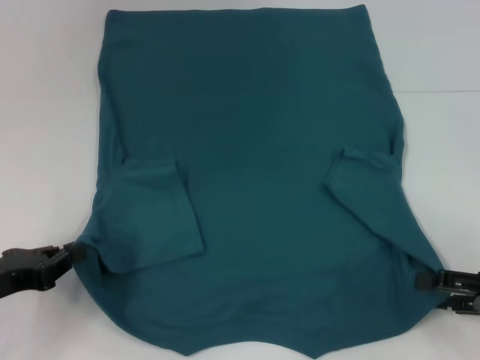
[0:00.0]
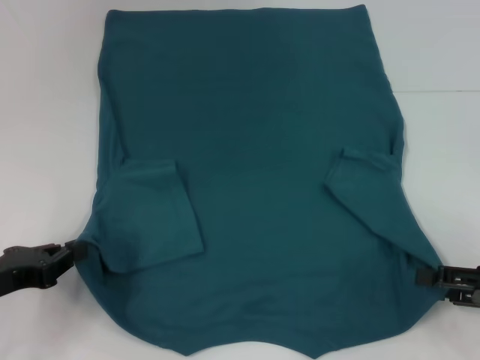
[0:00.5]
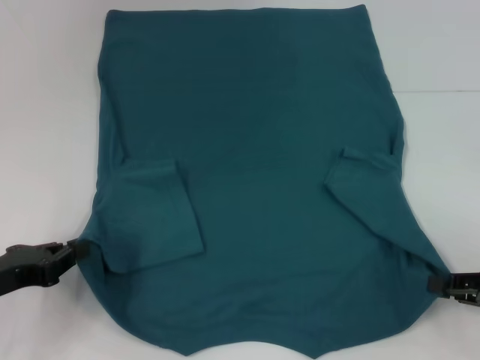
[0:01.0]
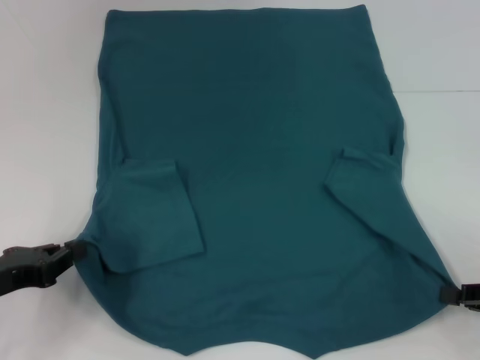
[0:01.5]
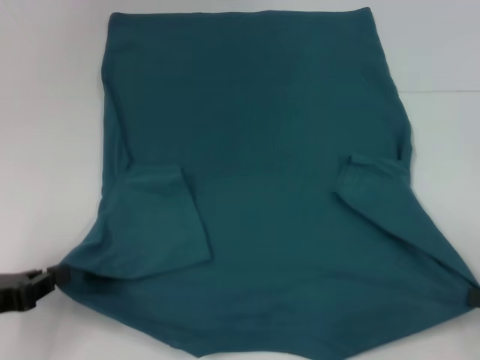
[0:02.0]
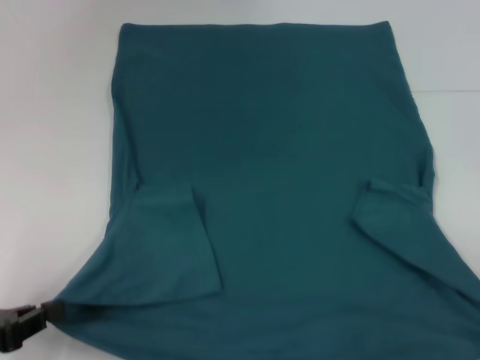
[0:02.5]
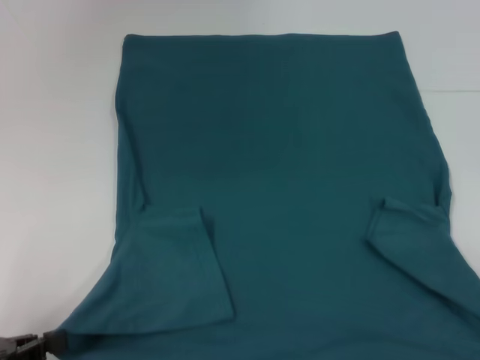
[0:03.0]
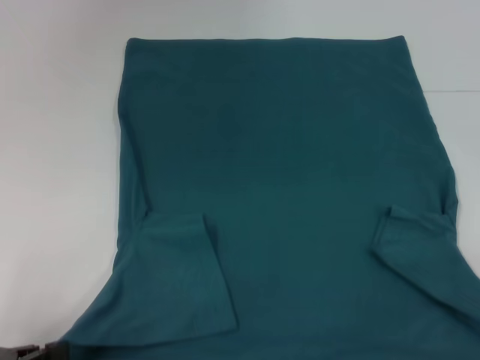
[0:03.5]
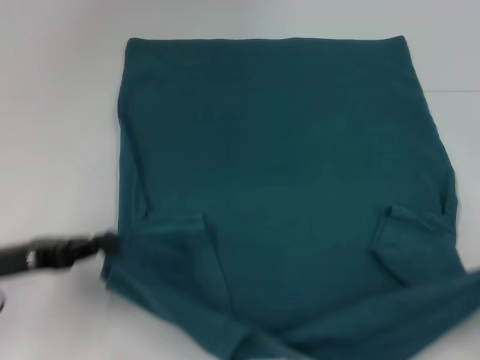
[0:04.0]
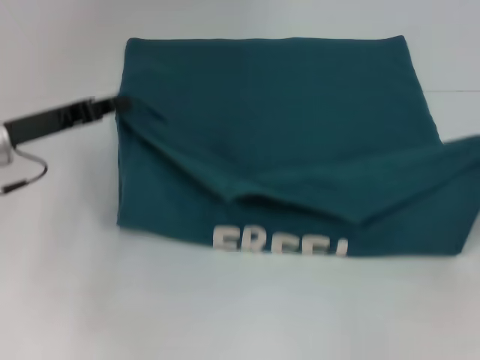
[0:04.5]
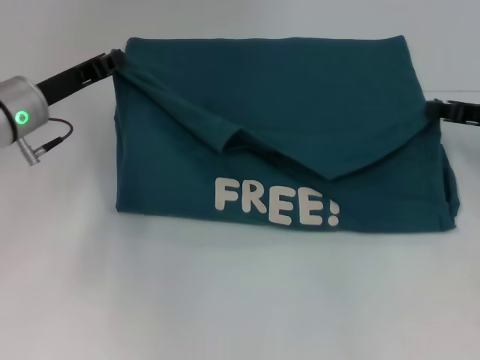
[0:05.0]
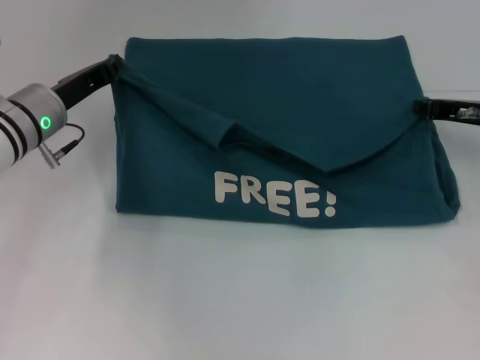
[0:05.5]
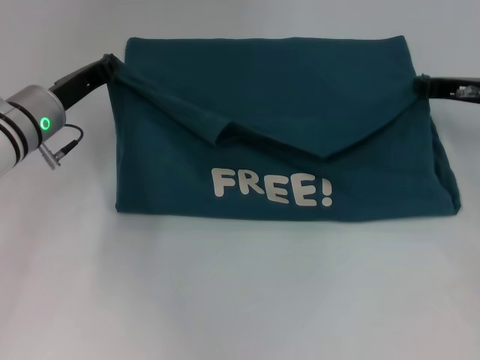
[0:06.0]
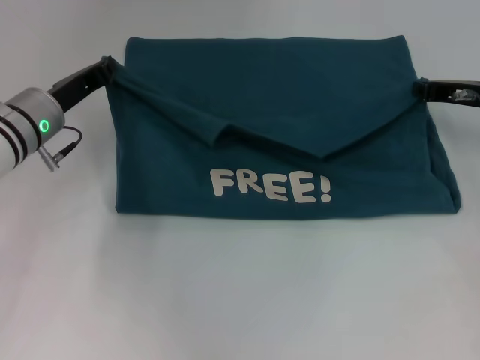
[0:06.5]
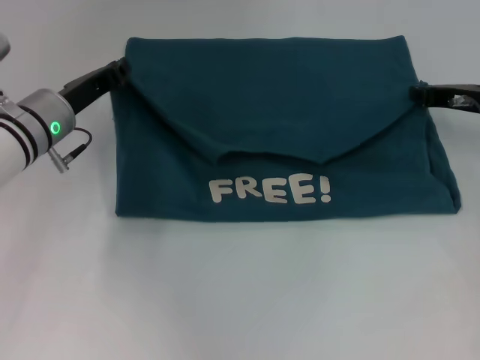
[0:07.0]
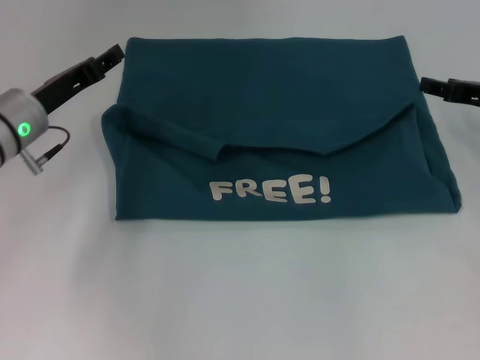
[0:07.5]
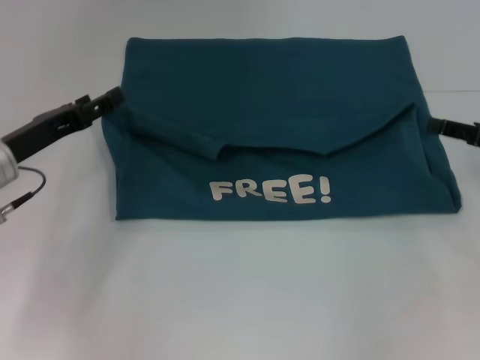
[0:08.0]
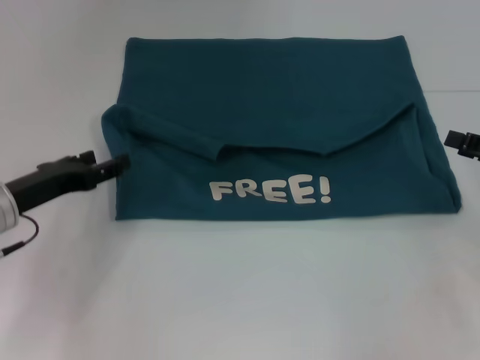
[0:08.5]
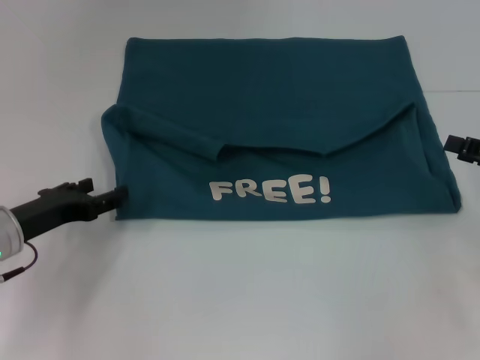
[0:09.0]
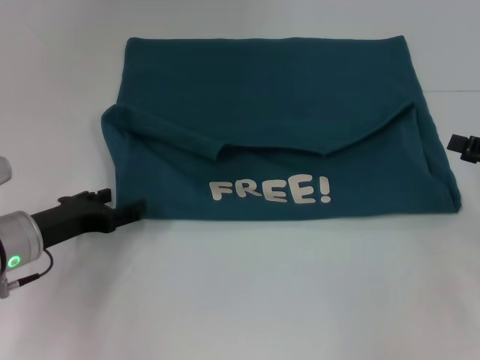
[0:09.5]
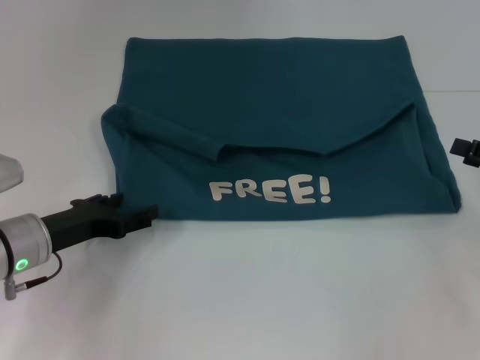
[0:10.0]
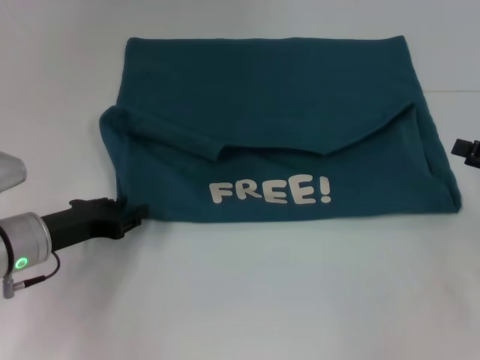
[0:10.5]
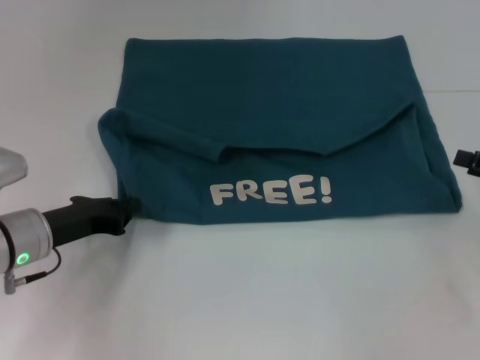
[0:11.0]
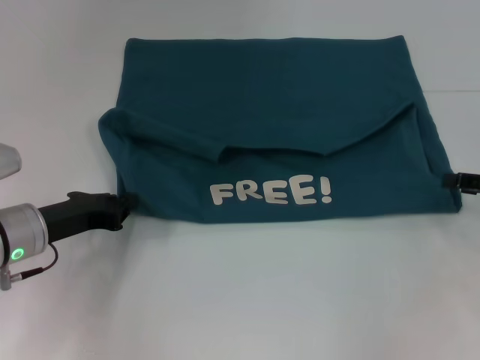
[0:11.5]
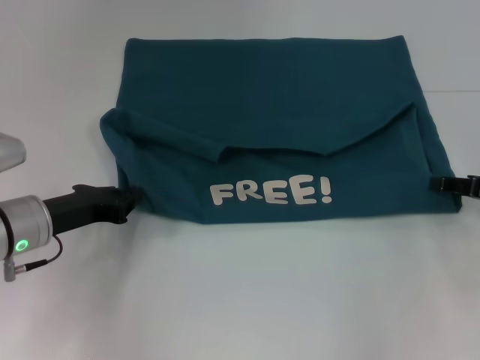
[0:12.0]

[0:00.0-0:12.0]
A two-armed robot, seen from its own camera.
Step, 0:01.0 to 0:07.0: Fold the clothes to the left.
Step, 0:01.0 to 0:07.0: Fold the clothes to the right.
0:00.0 to 0:02.0: The right gripper closes its fingers.
0:02.0 to 0:04.0: The right gripper goes backward and returns, approximately 10 cm each way, while the left gripper moves about 5 cm.
0:04.0 to 0:06.0: The right gripper is displaced forward and to the left by about 25 cm, while the left gripper is displaced forward and to the right by about 20 cm.
0:06.0 to 0:08.0: The left gripper is displaced backward by approximately 5 cm, and opens up, while the right gripper is displaced backward and to the right by about 10 cm, and opens its fingers.
0:08.0 to 0:10.0: The left gripper goes roughly 5 cm downward.
0:10.0 to 0:12.0: The left gripper closes its fingers.

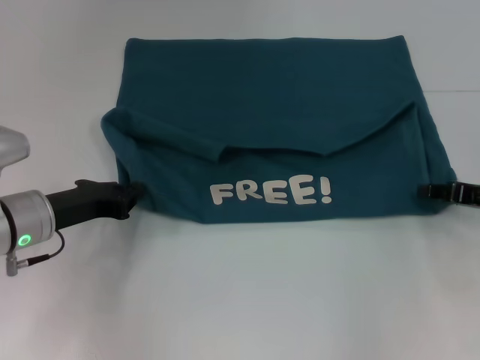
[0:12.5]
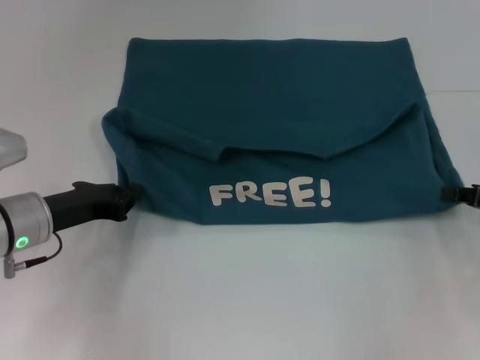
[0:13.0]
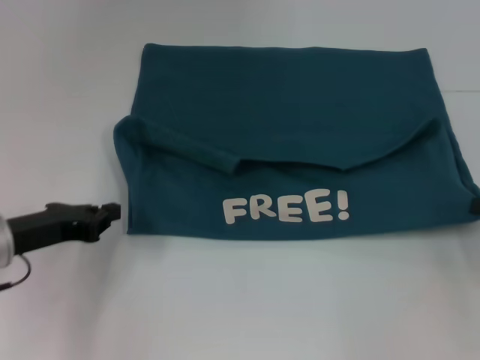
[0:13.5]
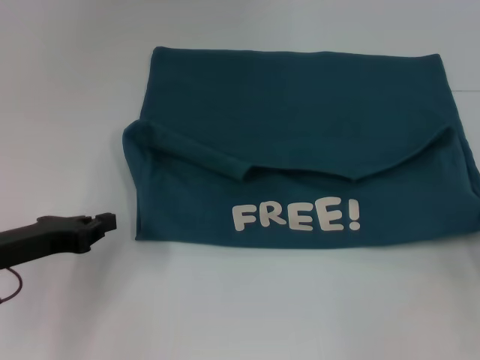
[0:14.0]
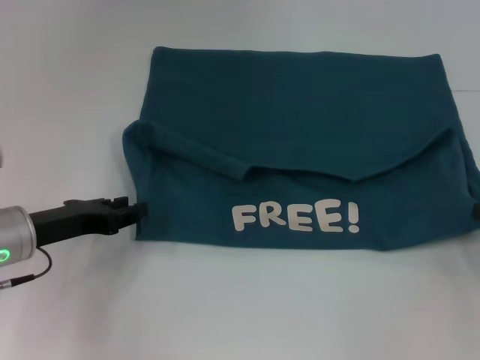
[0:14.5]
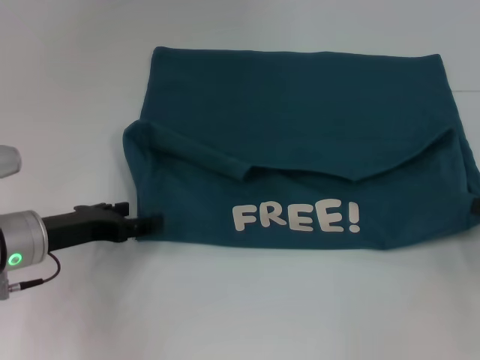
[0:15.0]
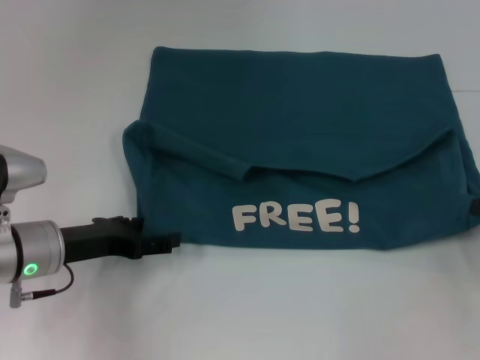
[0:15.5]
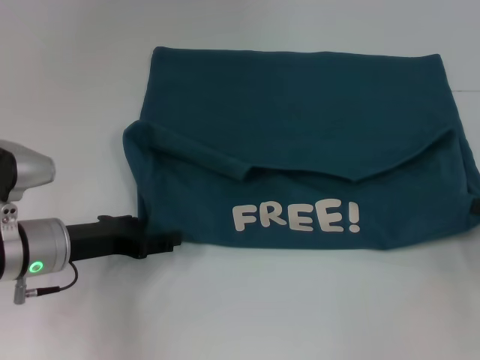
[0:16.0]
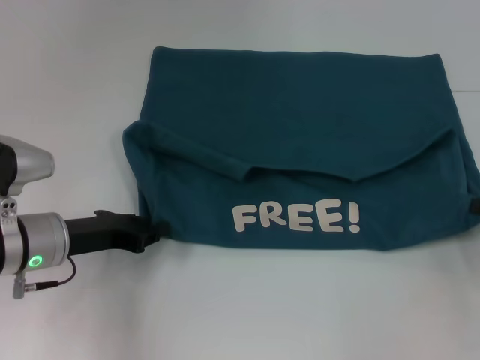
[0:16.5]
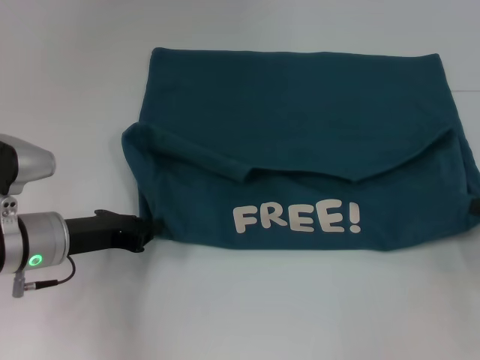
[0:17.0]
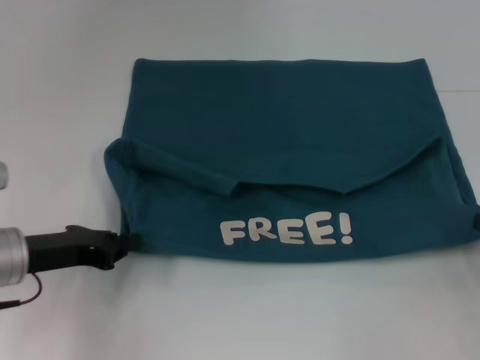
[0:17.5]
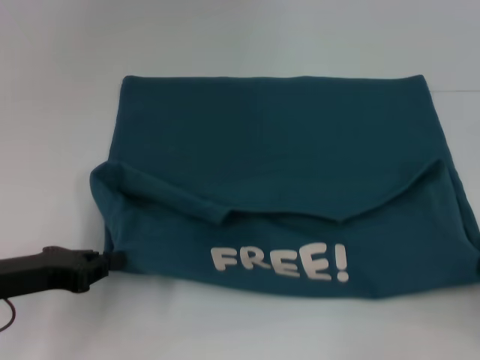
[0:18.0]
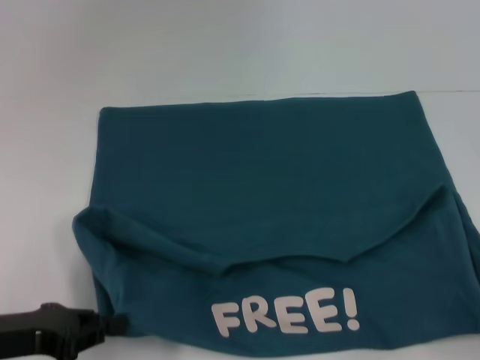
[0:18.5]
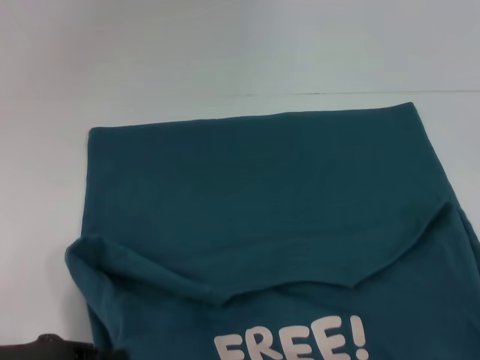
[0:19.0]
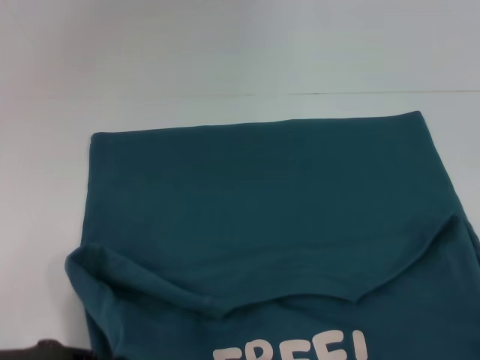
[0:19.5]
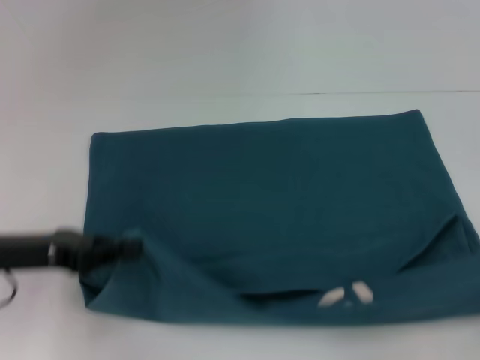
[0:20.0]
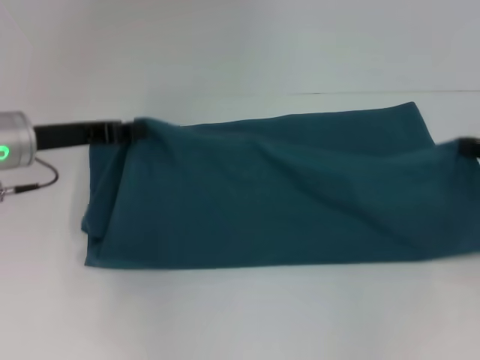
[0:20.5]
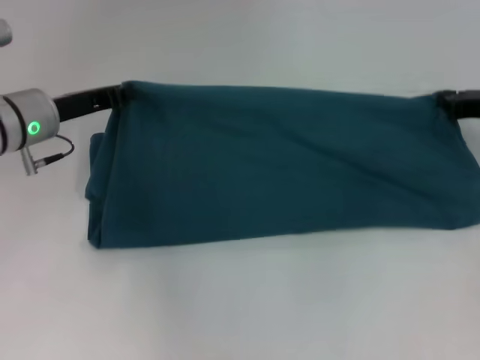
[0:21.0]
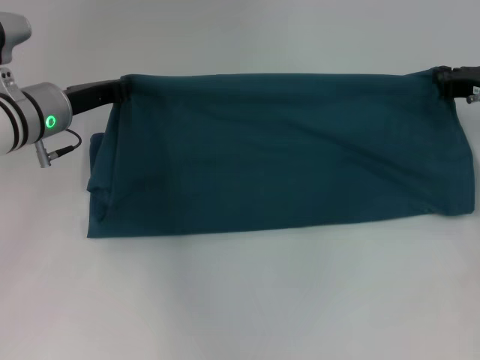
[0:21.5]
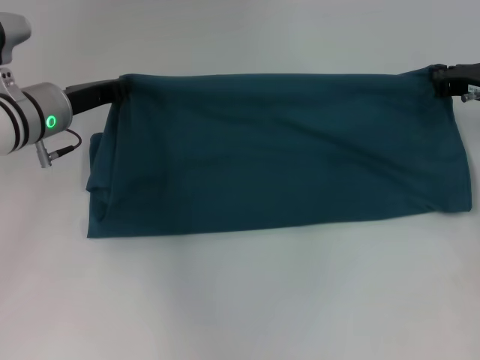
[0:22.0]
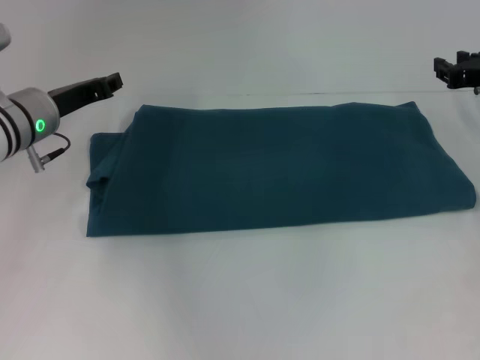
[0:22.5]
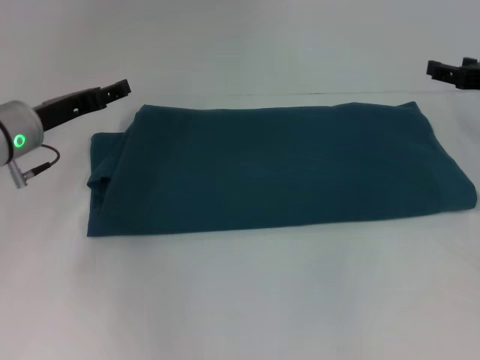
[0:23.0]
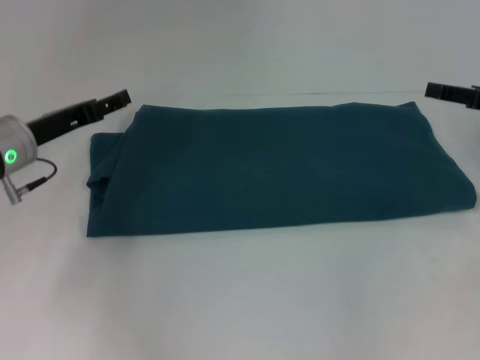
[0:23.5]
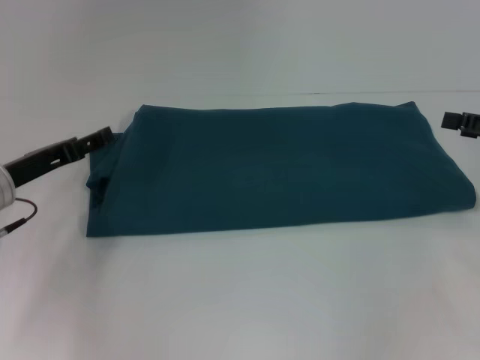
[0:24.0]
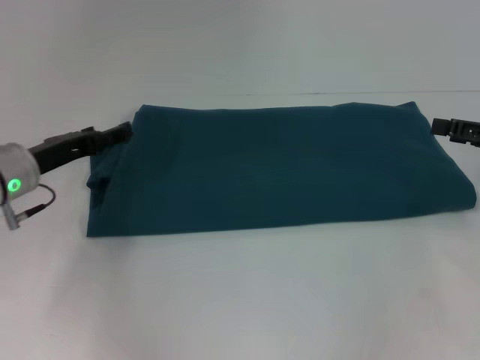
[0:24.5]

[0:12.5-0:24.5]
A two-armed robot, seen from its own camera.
Step, 0:12.5 to 0:18.5: Pull the clothes with your left hand.
Step, 0:12.5 to 0:18.5: Pull the clothes with your right hand.
Step, 0:19.0 to 0:24.0: Fold the clothes to the right.
0:12.5 to 0:14.5: The right gripper moves backward, approximately 5 cm, and closes.
0:14.5 to 0:16.5: The left gripper opens, then closes again.
0:16.5 to 0:18.5: The left gripper travels backward and to the left by approximately 10 cm, and closes its fingers, while the right gripper is displaced backward by approximately 10 cm.
0:18.5 to 0:20.5: The two grippers go roughly 15 cm forward.
0:20.5 to 0:22.5: The left gripper moves approximately 5 cm; the right gripper heads forward and to the left, covering about 10 cm.
0:22.5 to 0:24.5: The left gripper shifts approximately 5 cm backward, and opens up. The right gripper shifts some 10 cm backward and to the right, and opens up.

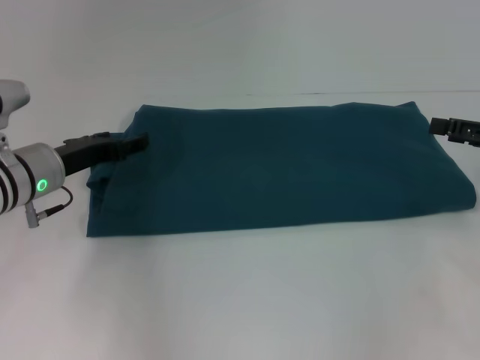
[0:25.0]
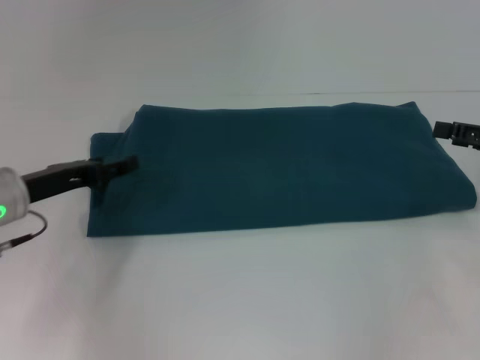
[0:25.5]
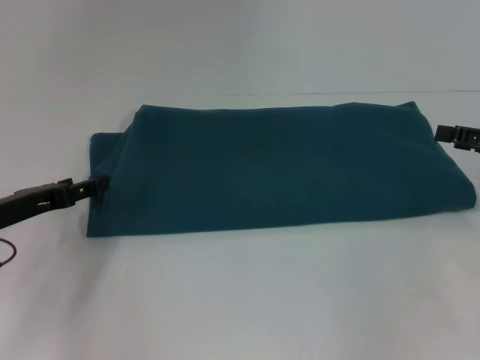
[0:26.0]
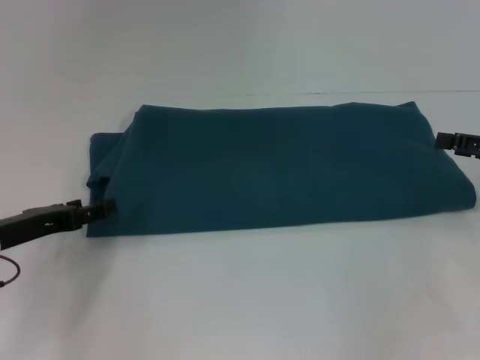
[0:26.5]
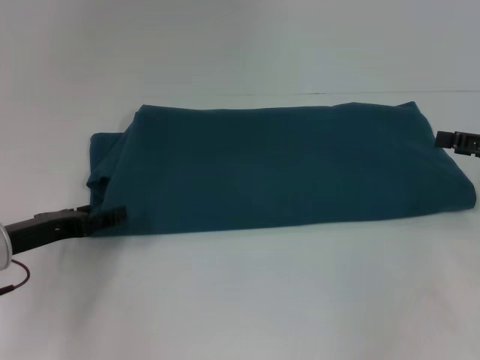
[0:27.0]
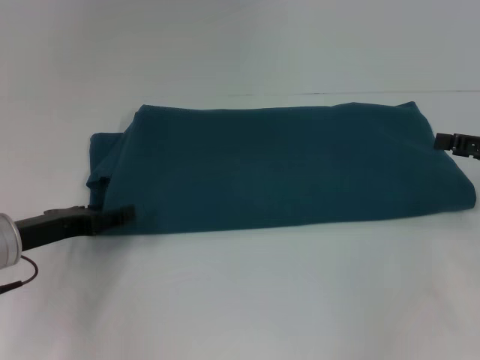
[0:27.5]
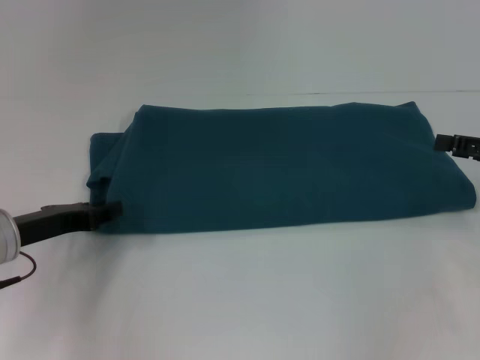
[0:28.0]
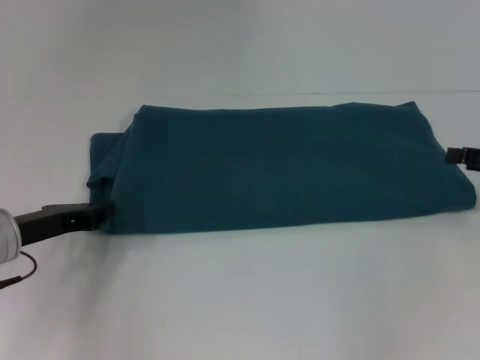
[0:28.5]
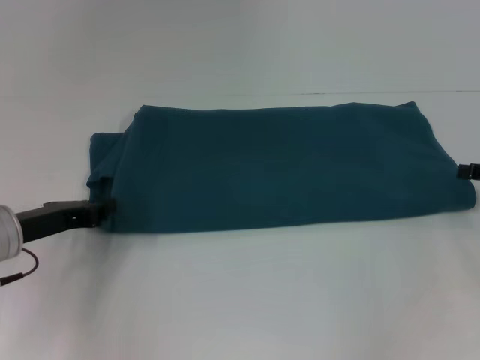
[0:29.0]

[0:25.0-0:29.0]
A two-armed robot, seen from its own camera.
0:25.0 to 0:27.0: The left gripper moves backward, some 10 cm.
0:27.0 to 0:29.0: The left gripper closes up.
